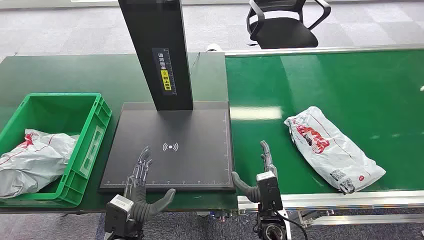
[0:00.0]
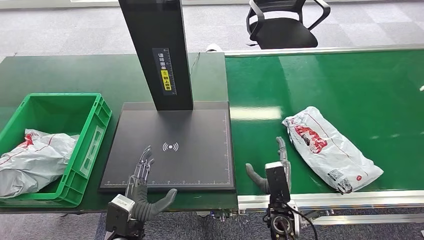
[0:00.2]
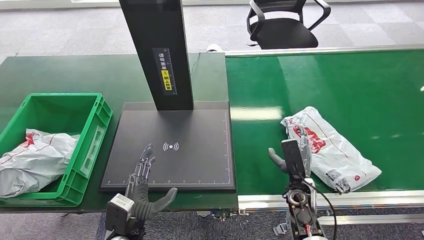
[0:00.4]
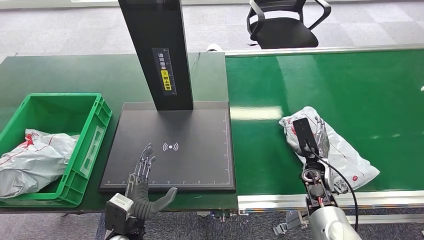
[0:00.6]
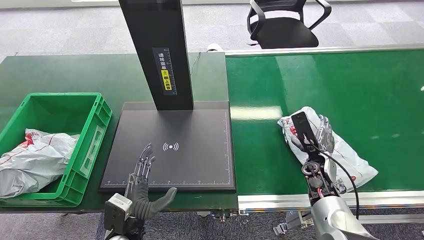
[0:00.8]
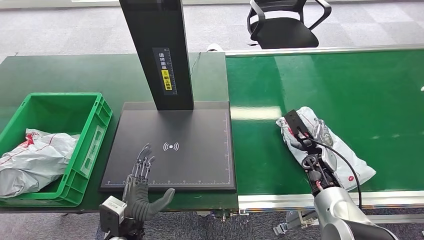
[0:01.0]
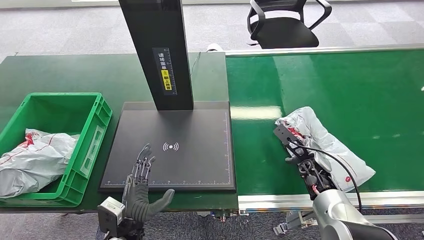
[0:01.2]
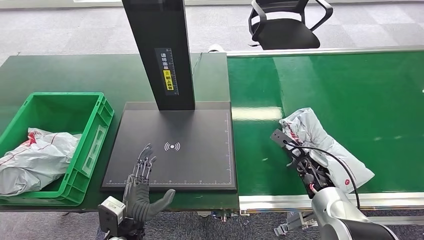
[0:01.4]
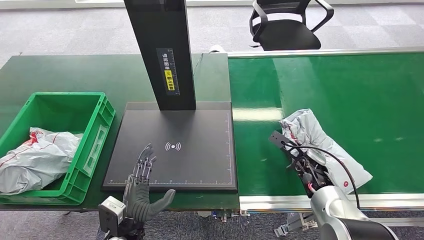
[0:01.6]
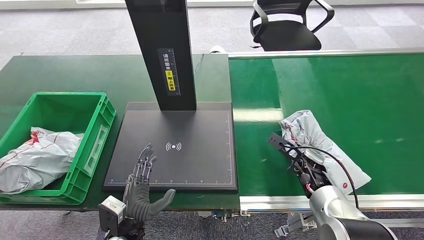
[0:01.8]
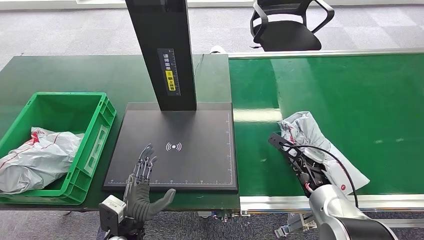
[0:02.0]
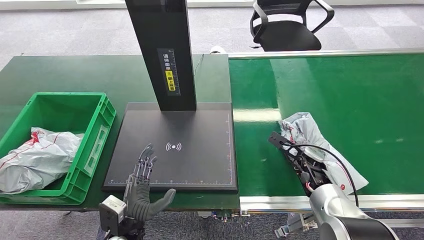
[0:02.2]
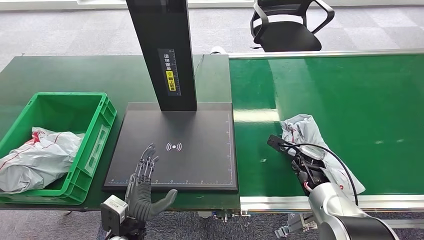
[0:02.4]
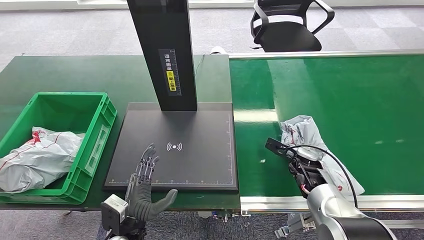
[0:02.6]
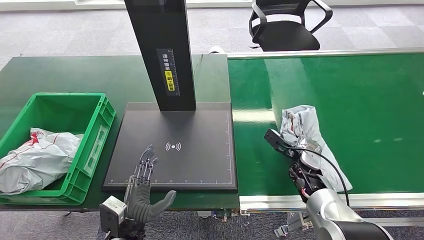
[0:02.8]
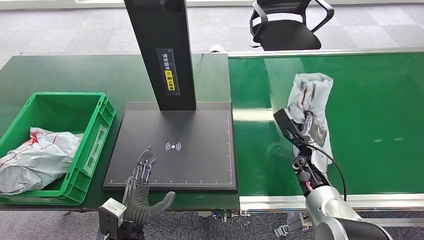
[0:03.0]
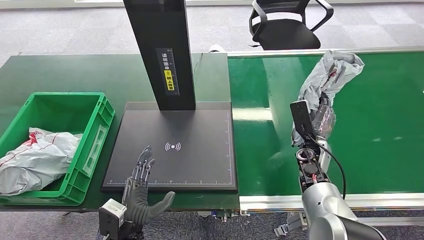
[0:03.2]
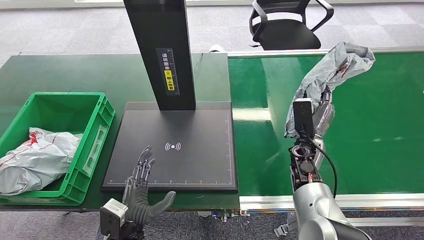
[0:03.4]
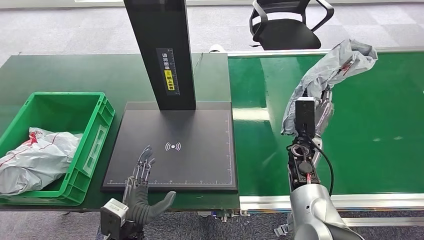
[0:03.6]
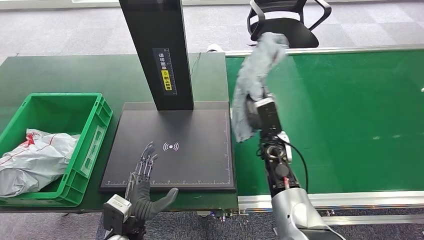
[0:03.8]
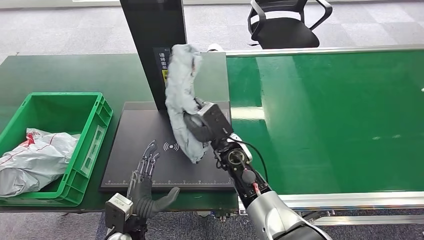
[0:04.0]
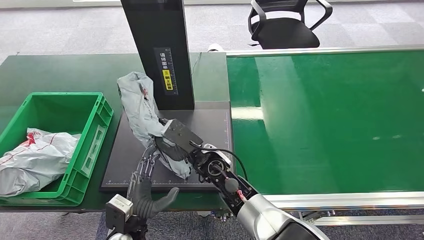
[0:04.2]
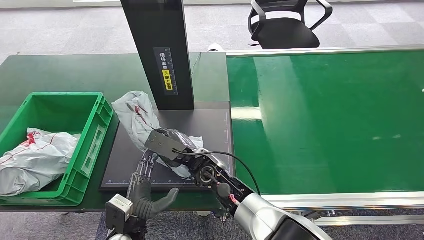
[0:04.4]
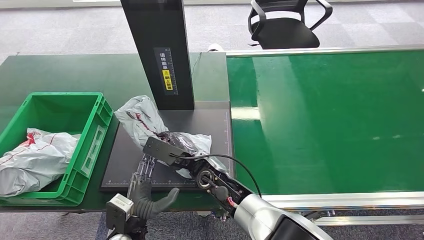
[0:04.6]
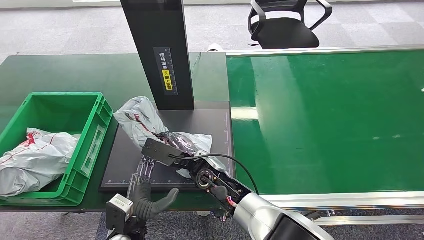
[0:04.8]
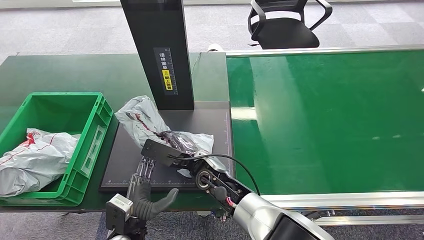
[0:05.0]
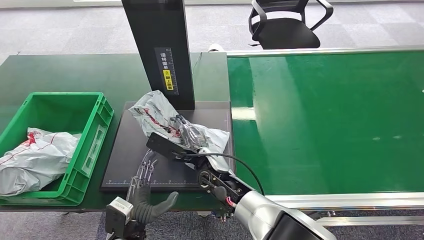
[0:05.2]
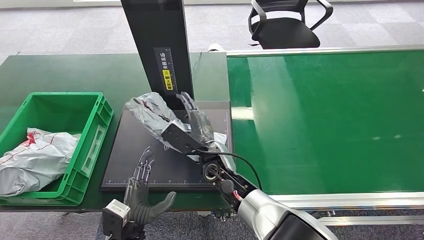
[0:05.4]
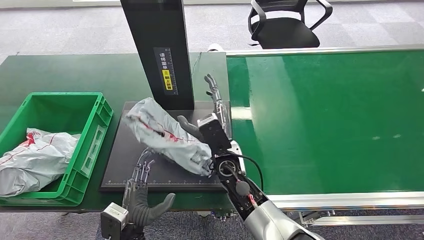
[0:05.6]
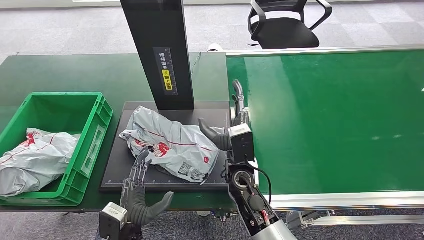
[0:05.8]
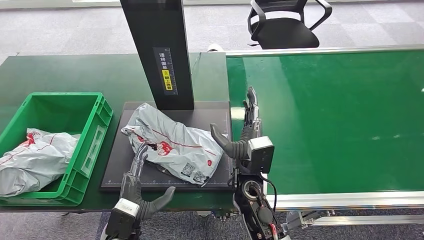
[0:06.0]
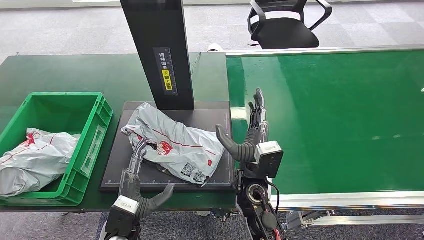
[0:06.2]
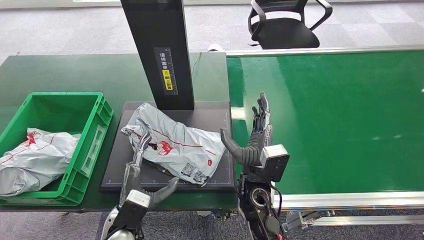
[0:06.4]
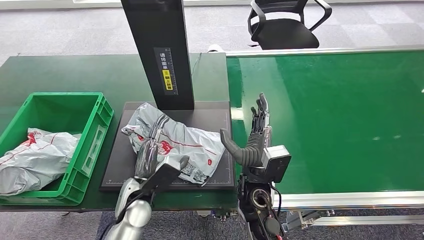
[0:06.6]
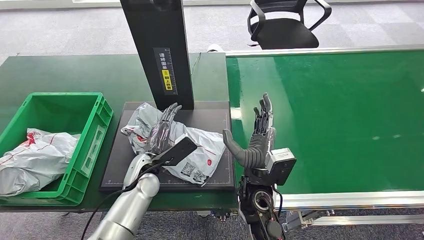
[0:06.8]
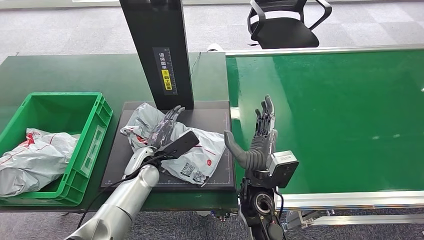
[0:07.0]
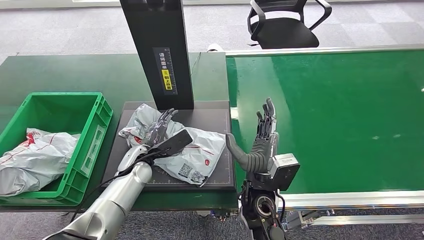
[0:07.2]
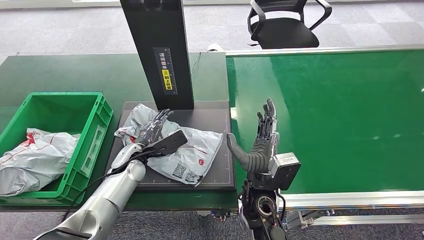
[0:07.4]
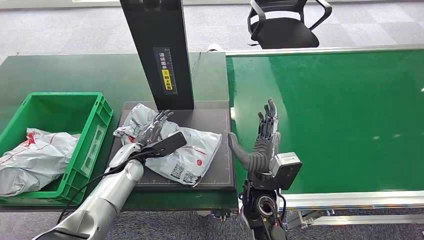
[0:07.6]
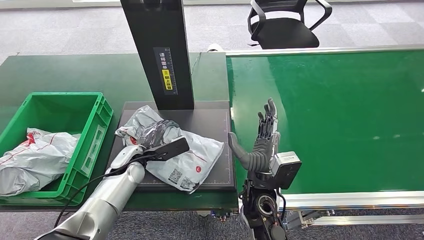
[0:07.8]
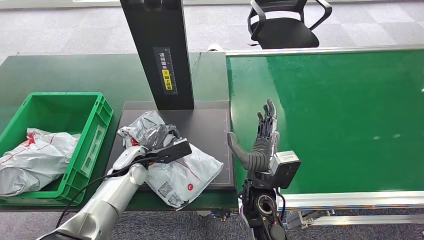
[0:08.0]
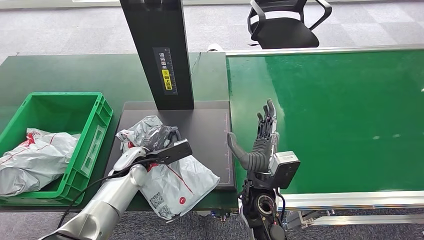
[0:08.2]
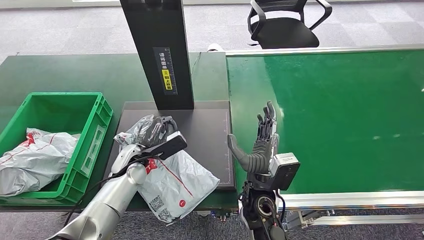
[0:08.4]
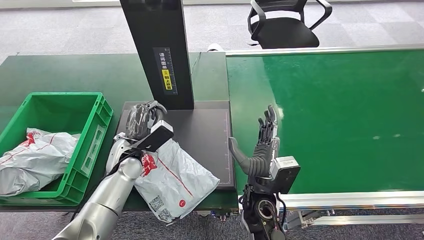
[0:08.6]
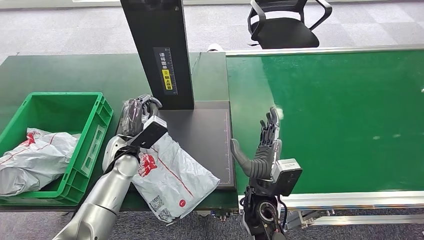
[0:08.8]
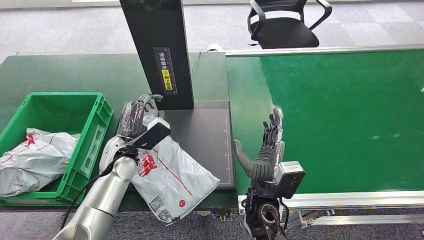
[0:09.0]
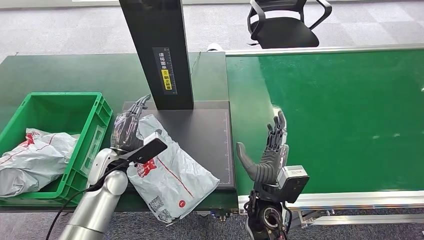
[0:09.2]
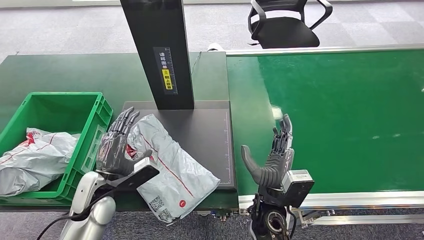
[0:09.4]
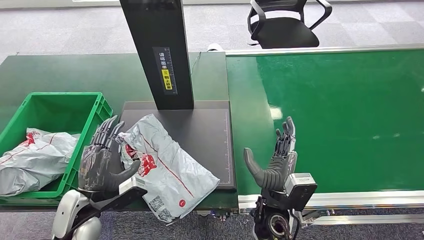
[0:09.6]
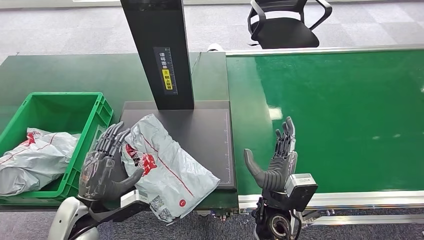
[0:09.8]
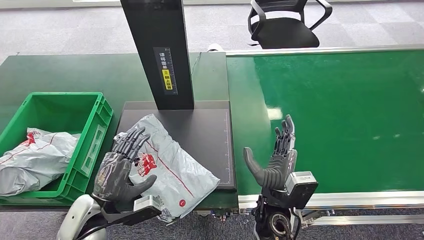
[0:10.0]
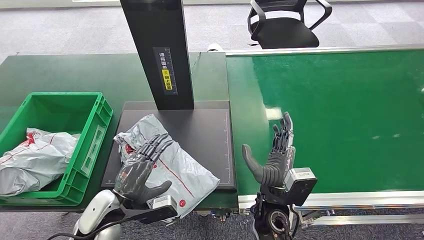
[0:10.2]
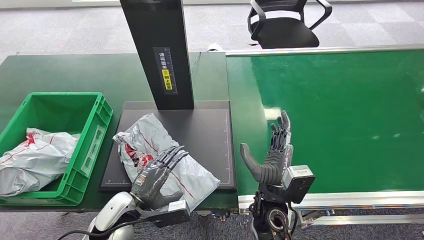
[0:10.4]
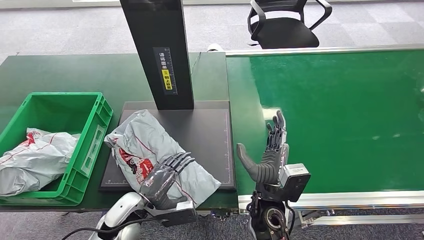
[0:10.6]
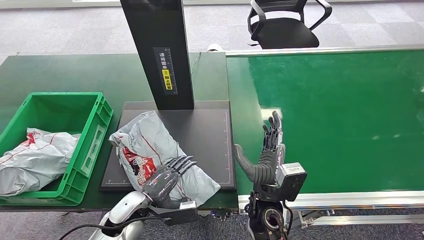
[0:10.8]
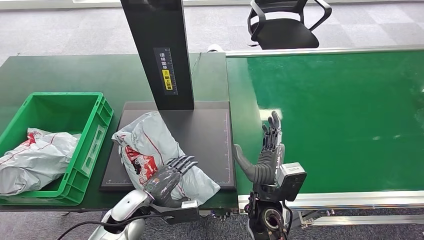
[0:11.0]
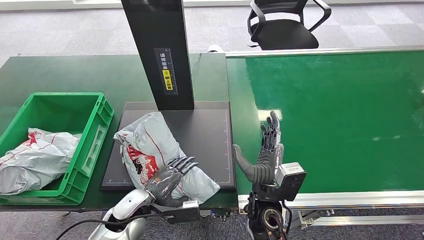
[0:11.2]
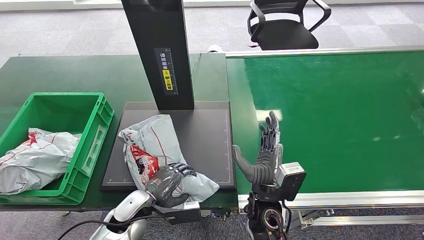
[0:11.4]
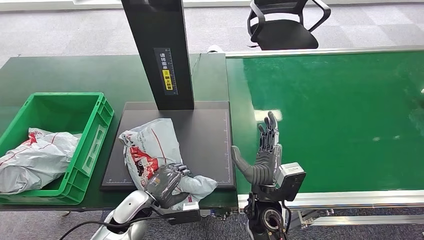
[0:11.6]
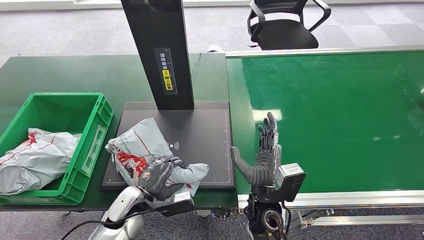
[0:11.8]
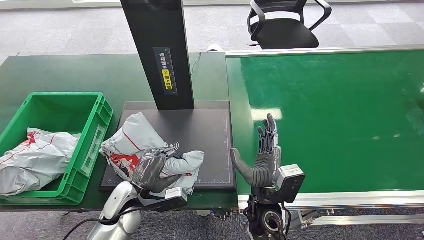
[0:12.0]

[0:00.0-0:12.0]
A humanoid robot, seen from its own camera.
Step, 0:00.0 to 0:03.4: Pick up the package from the conveyor belt.
Step, 0:03.6 to 0:06.6: Place the package onto the inbound machine.
0:04.4 to 0:06.0: The right hand travels to the right by approximately 5 cm.
0:06.0 to 0:07.6: The left hand moves forward, roughly 20 cm.
0:09.0 to 0:10.4: The left hand shifts some 15 cm backward and downward.
0:10.4 to 0:12.0: There are only small adjustments of the hands.

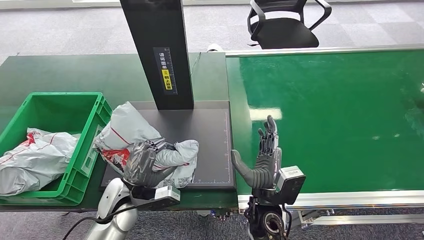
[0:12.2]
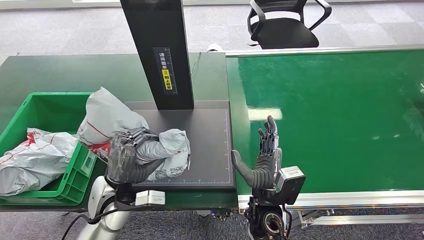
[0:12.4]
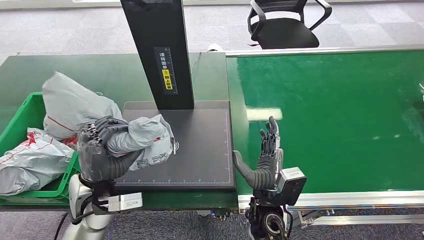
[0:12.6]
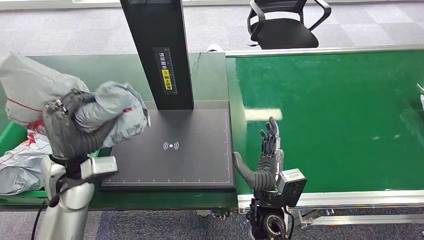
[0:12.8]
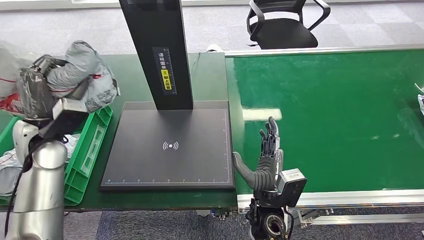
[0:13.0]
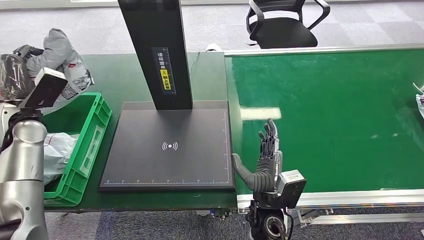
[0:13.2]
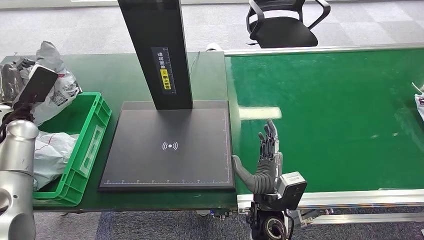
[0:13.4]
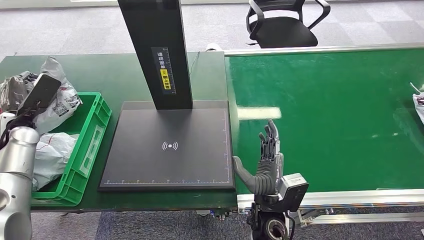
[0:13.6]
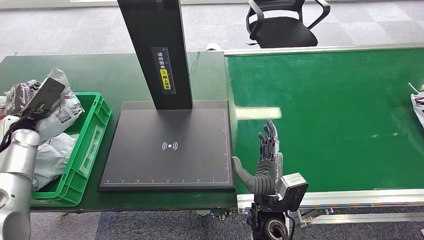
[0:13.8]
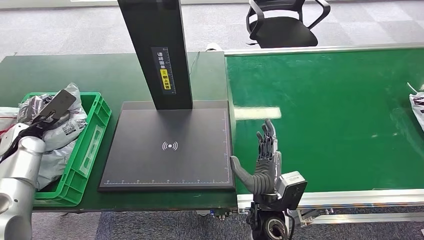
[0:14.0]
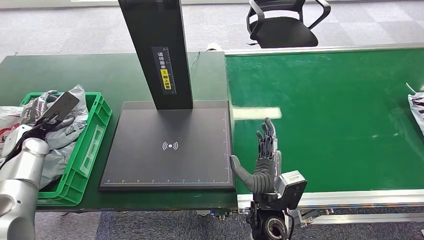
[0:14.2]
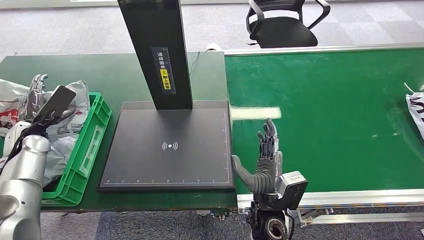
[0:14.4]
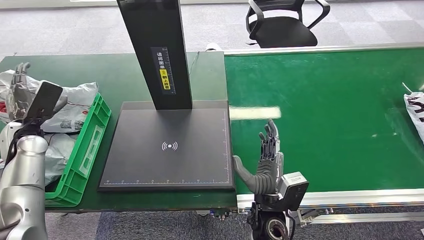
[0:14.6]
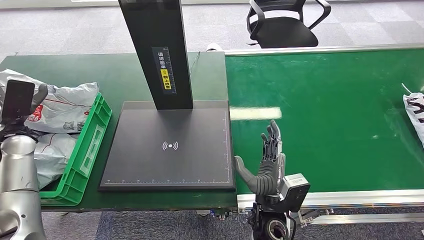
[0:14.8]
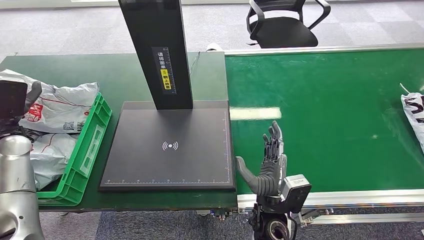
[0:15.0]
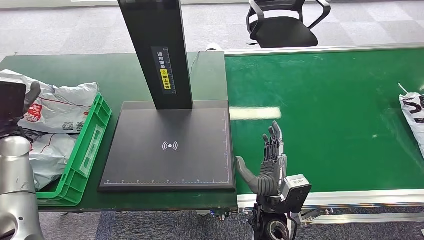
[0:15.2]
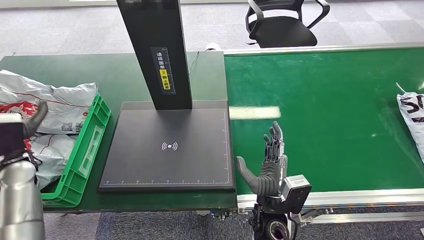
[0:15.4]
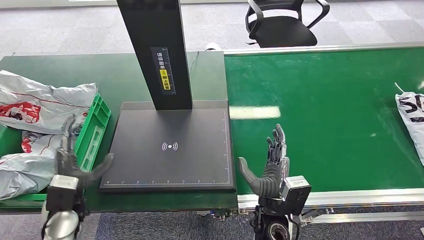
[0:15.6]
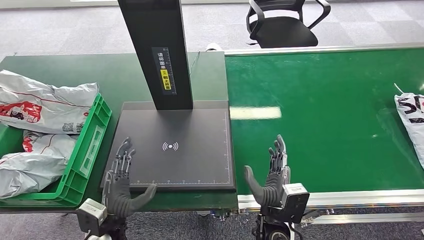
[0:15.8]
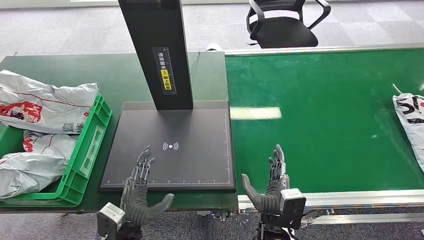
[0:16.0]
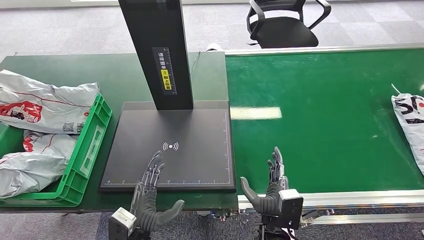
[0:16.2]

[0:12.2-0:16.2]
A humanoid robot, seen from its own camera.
Step, 0:12.8 to 0:16.2: Place the package into the parcel locker.
0:13.6 to 0:14.8: The hands stay close to where they were, moving slightly.
0:14.8 to 0:16.2: The left hand moves to the right, backward and downward, some 40 cm. The right hand goes roughly 5 cm downward.

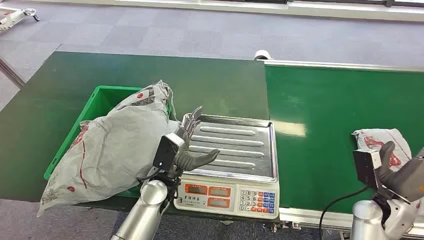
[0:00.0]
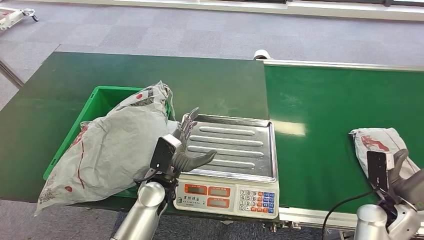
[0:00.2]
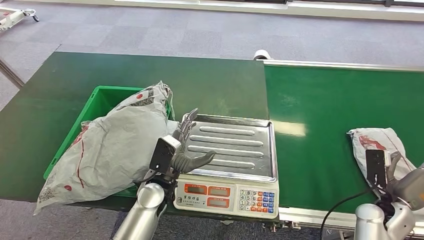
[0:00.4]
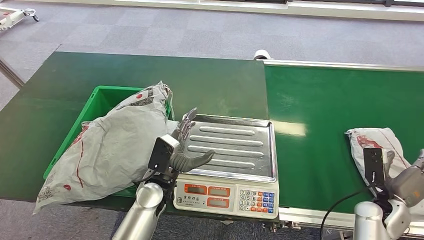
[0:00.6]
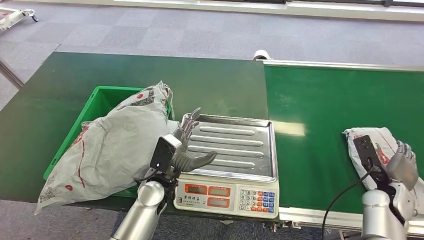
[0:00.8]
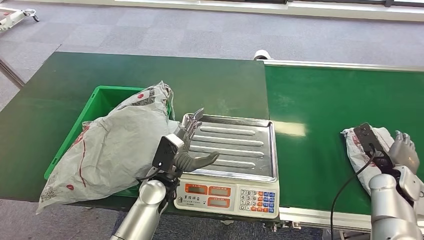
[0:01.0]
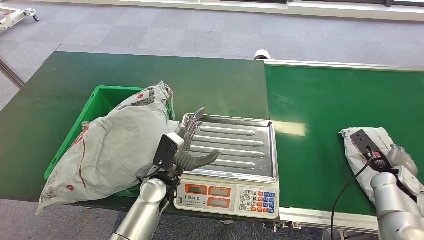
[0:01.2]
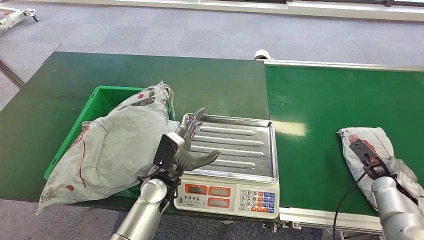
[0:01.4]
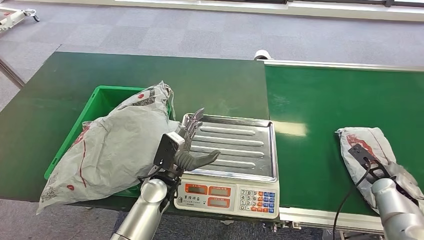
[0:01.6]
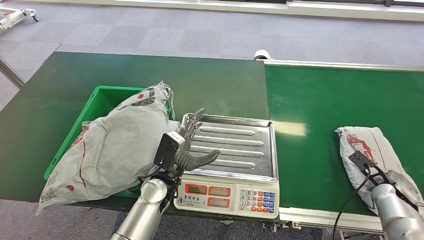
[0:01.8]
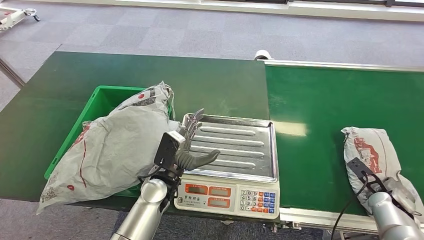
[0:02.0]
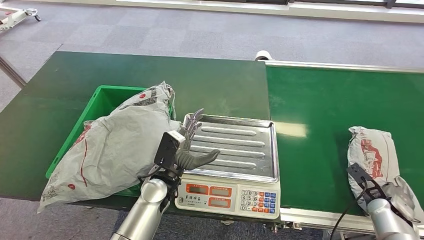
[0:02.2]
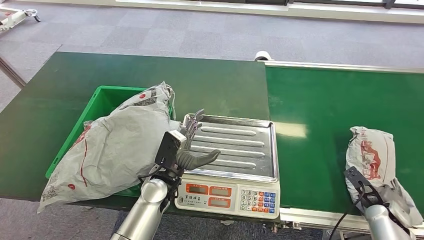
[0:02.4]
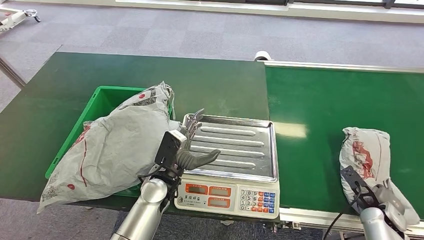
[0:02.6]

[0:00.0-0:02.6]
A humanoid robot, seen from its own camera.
0:01.2 to 0:02.6: The right hand goes about 10 cm downward and backward.
